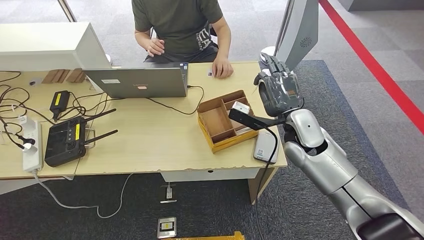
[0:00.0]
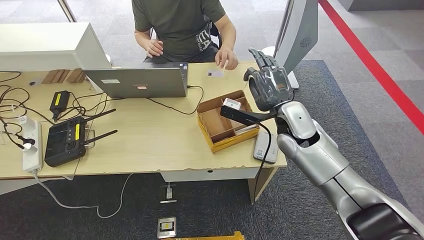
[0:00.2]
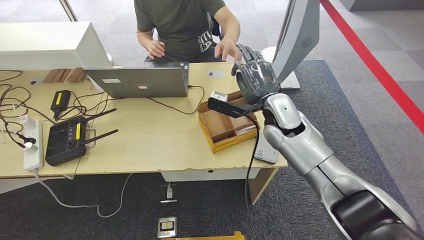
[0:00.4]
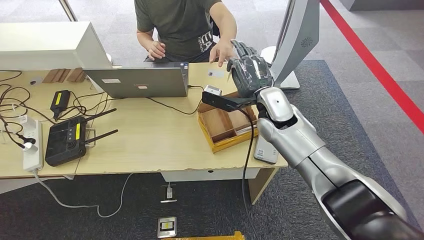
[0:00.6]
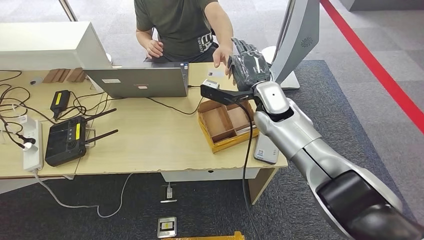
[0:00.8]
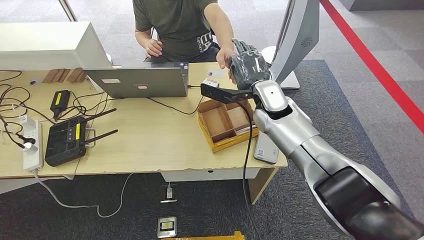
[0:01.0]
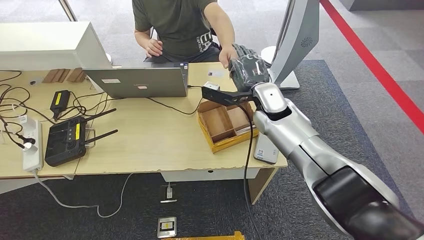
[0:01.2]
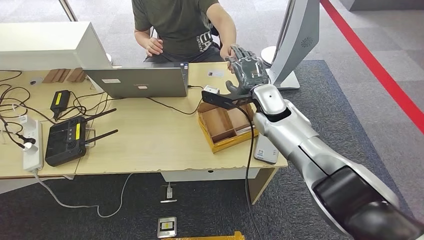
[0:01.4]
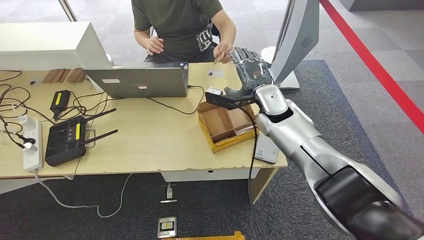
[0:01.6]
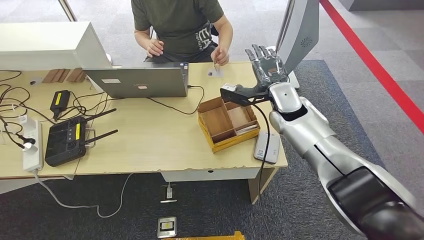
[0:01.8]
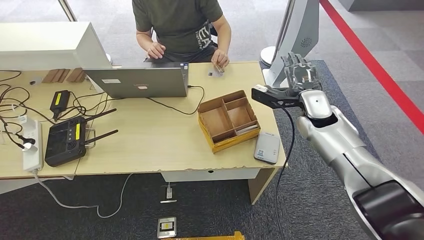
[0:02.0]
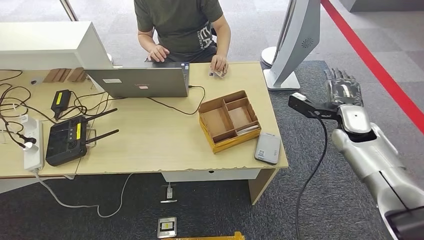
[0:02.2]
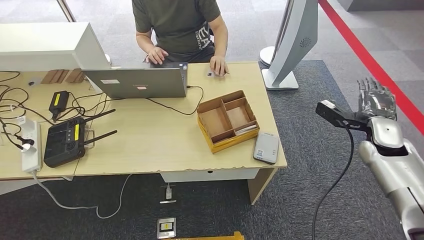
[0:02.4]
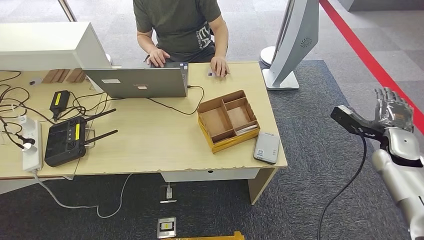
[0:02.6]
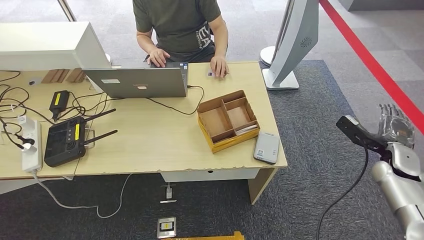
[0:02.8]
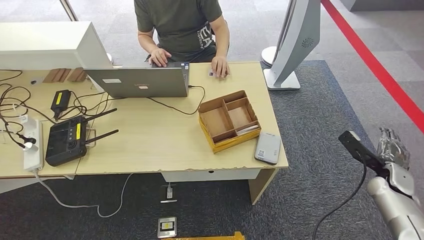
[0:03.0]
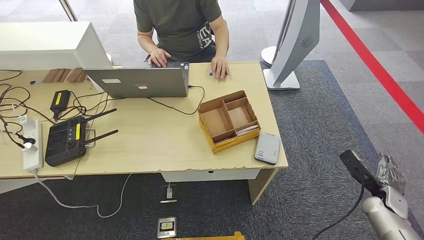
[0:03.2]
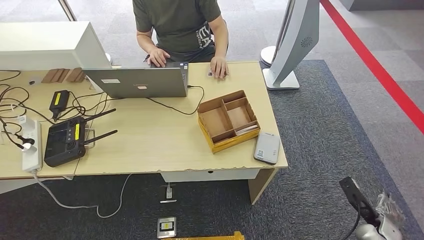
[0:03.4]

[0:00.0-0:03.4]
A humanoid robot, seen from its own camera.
Step, 0:00.0 to 0:03.4: Hand the room key to the person.
0:00.0 to 0:01.6: The right hand heads forward and to the left, covering roughly 10 cm.
0:01.6 to 0:03.4: The right hand moves to the right, backward and downward, some 50 cm.
